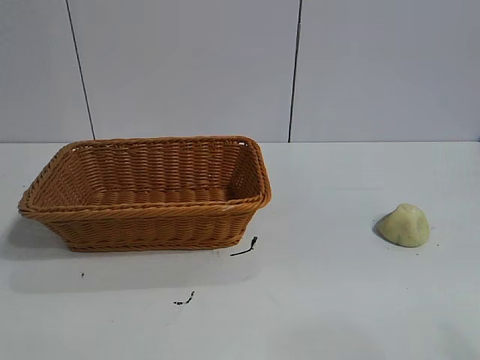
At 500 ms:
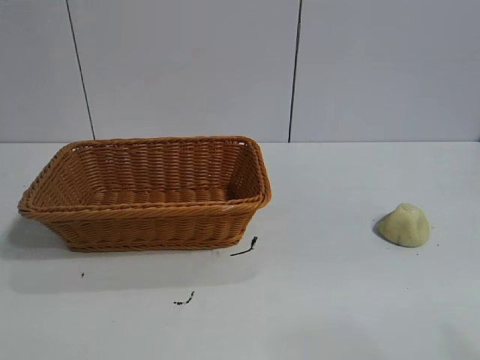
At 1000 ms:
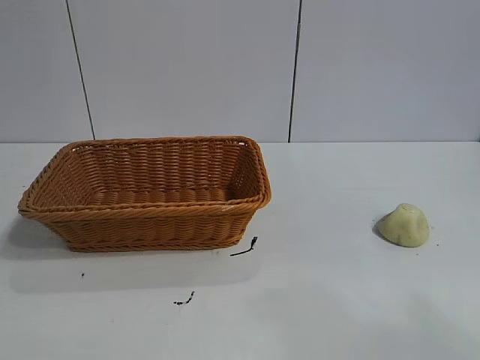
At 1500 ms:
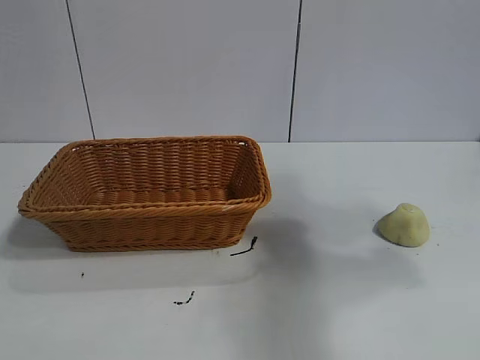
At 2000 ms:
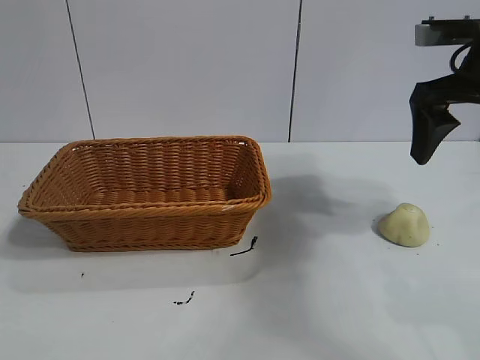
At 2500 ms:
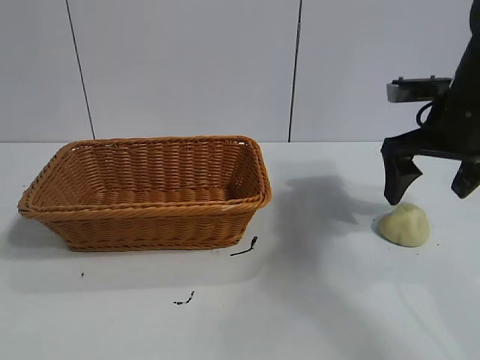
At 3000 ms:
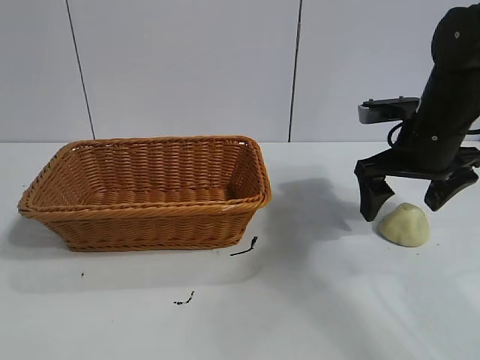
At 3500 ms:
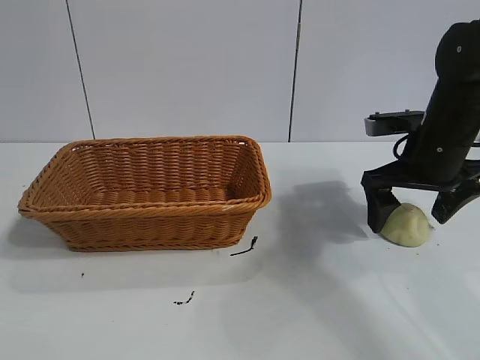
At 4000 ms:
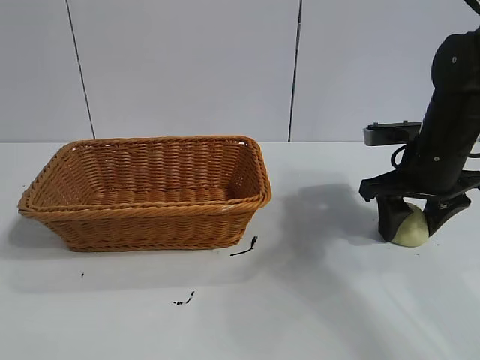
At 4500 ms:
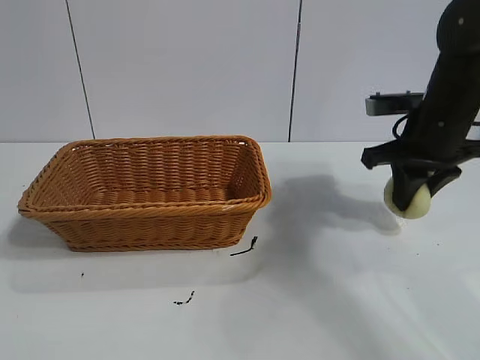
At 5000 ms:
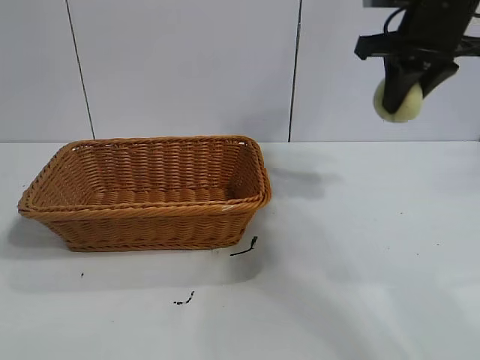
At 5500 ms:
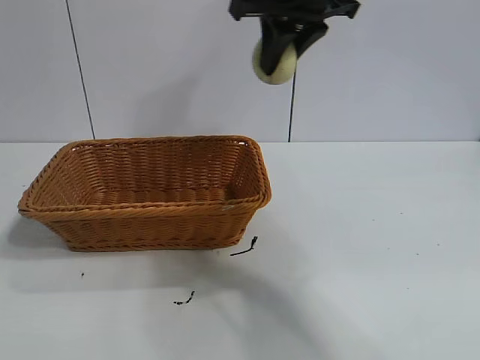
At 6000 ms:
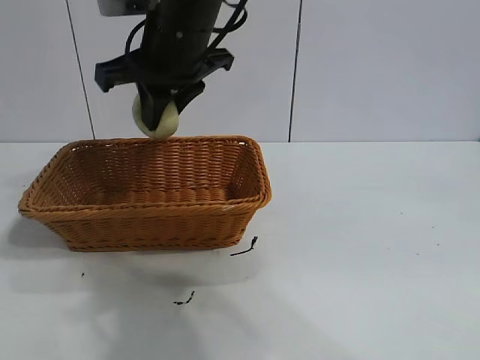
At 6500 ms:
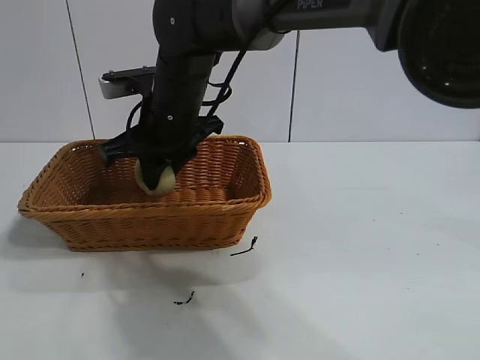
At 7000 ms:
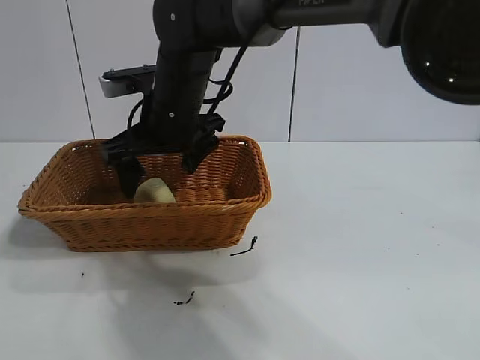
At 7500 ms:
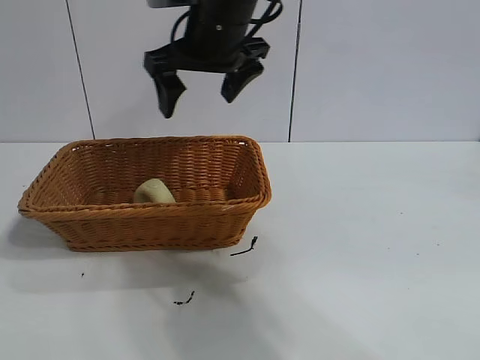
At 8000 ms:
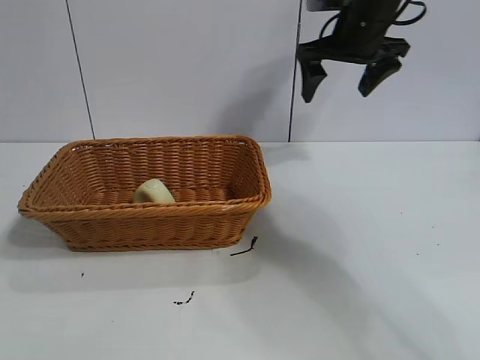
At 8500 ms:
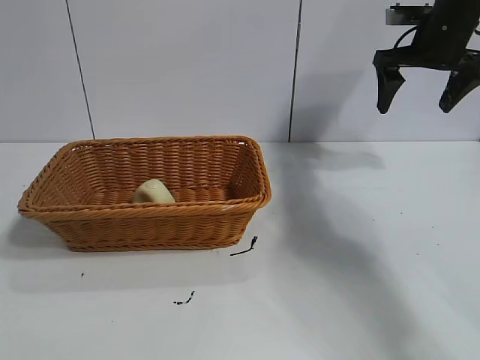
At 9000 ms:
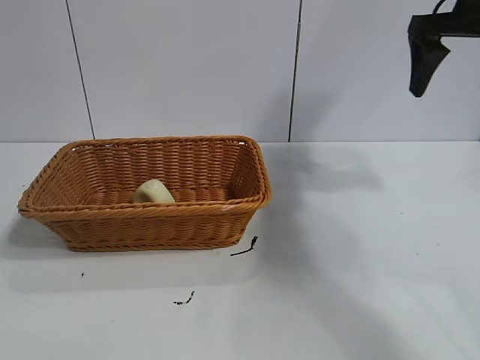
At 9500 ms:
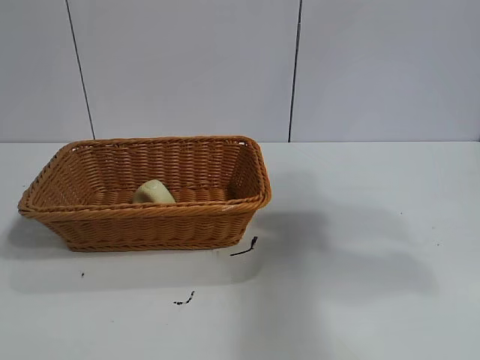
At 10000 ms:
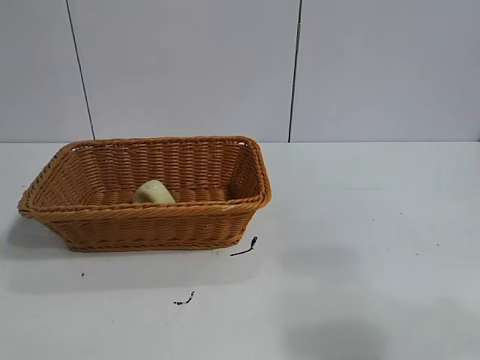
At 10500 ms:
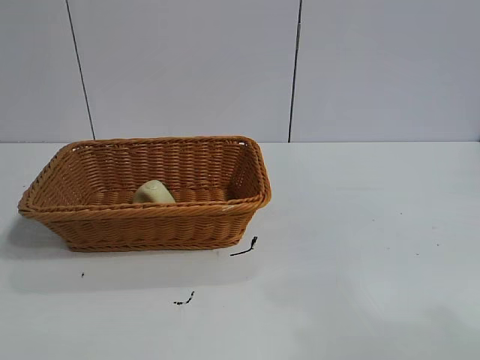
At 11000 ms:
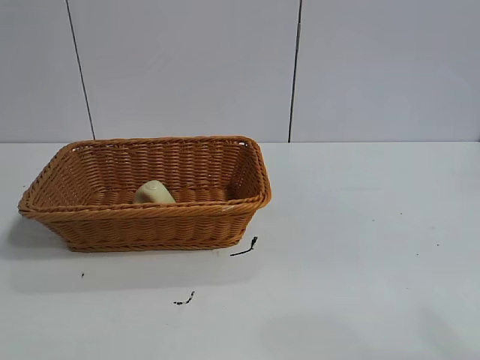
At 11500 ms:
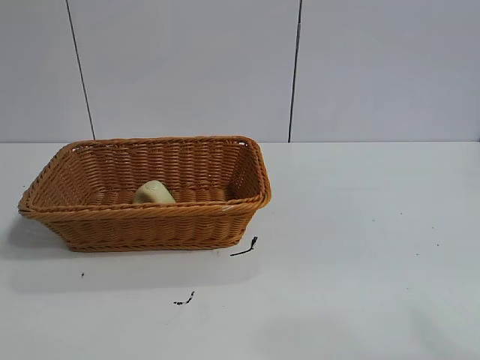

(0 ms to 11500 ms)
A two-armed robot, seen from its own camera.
Task of the whole recording: pick up the egg yolk pastry and put it into the basket.
Step, 1000 ms - 4000 ms: Grasp egg yolk pastry with right gripper.
Step, 4500 ms - 7000 ms: Place the egg yolk pastry in the basket with right gripper.

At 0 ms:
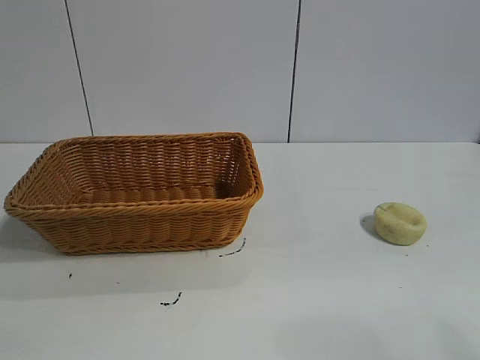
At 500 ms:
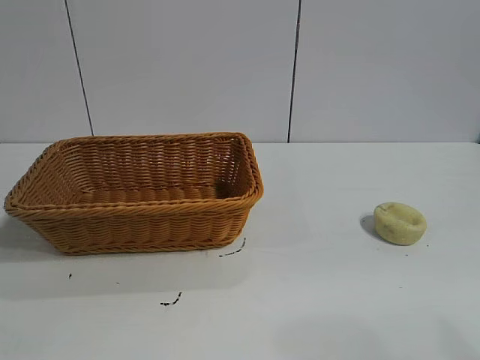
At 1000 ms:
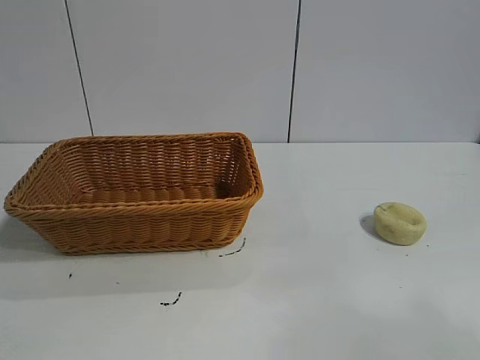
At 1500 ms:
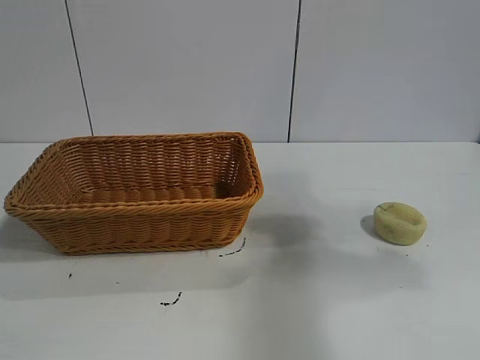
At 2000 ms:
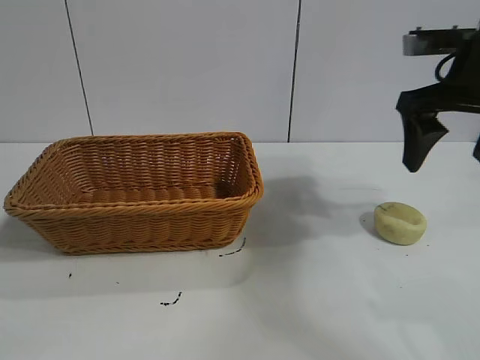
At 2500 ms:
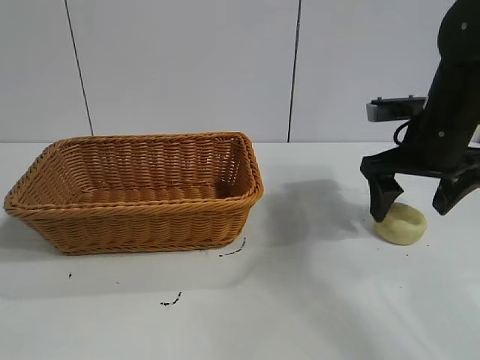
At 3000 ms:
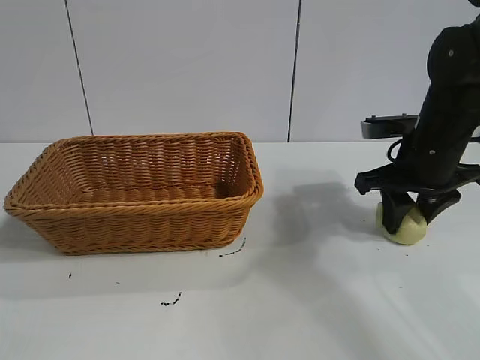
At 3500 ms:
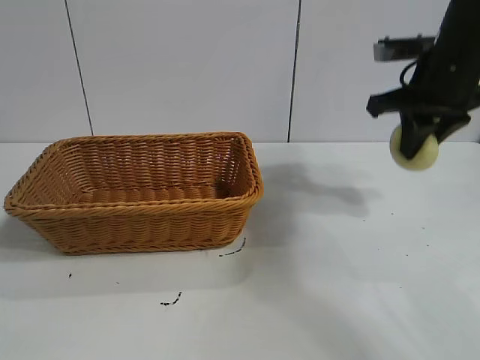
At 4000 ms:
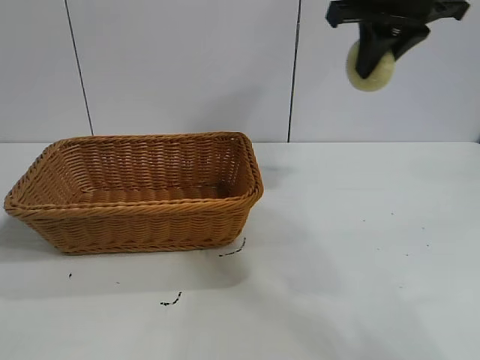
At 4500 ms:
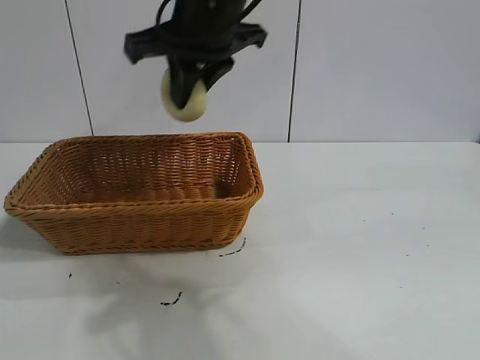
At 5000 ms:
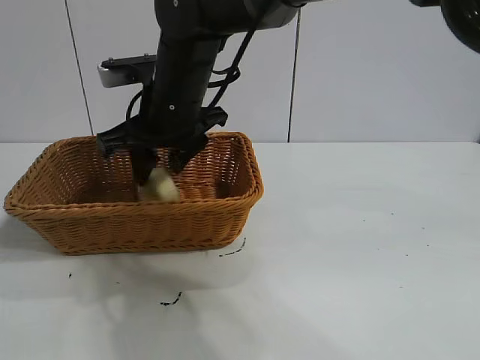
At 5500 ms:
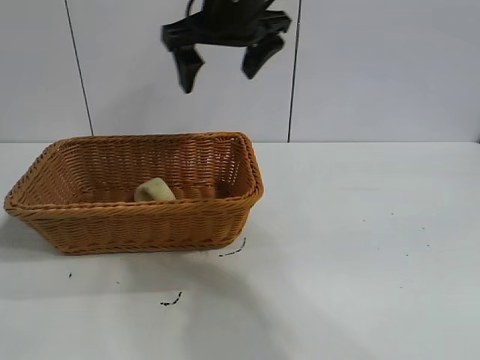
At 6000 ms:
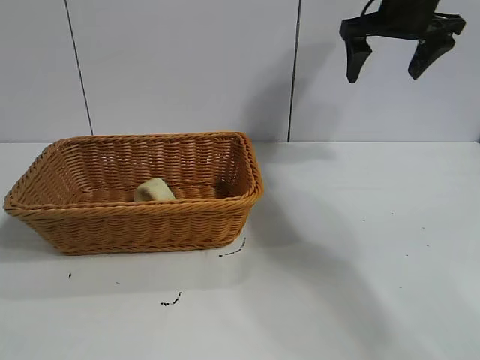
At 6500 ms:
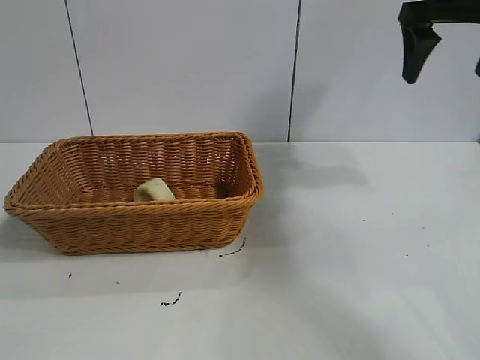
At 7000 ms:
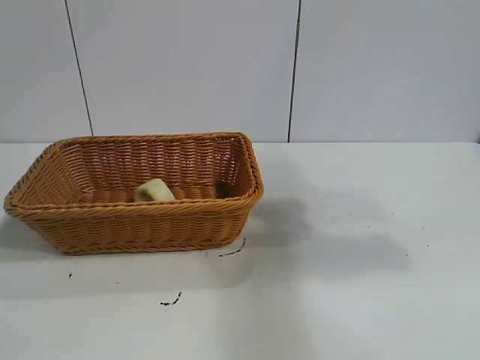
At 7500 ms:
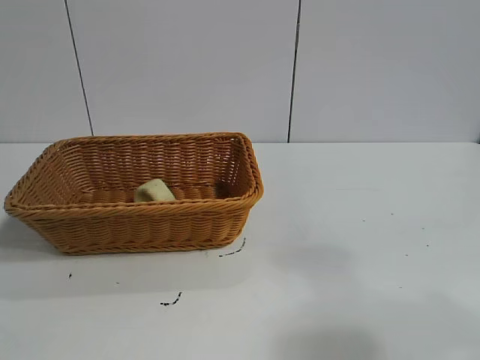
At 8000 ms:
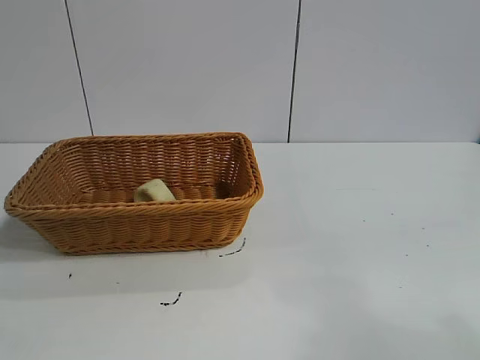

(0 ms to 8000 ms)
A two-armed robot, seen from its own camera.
Task of the whole recording: pick up the egg yolk pastry and put it into the basket.
Step, 1000 ms - 3000 ms: Grasp egg yolk pastry with right gripper.
Step, 3500 ms - 5000 ms: Place the egg yolk pastry in the basket with right gripper.
